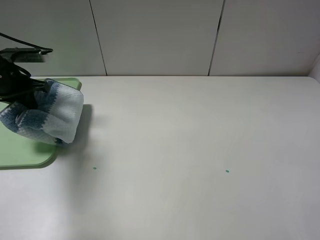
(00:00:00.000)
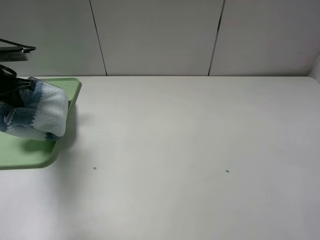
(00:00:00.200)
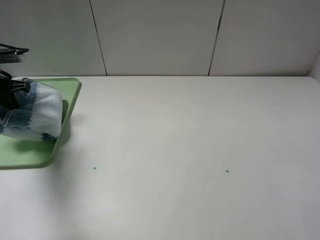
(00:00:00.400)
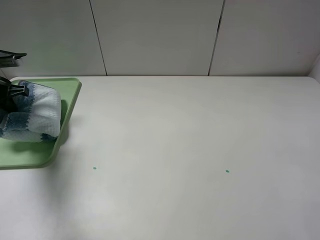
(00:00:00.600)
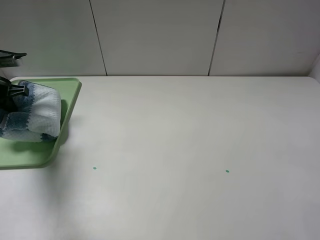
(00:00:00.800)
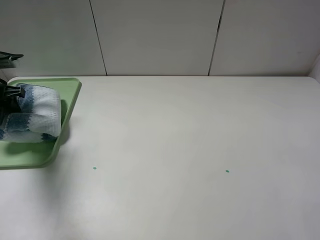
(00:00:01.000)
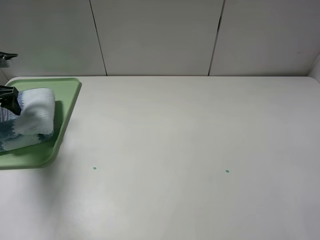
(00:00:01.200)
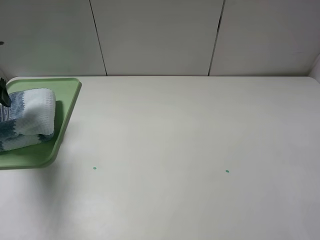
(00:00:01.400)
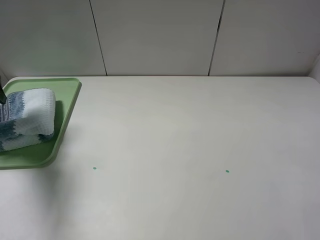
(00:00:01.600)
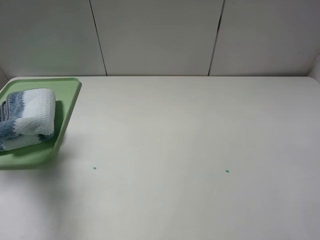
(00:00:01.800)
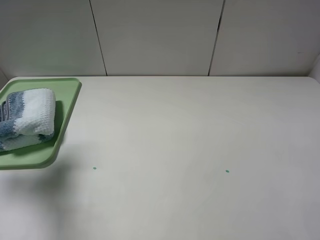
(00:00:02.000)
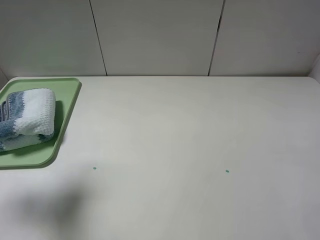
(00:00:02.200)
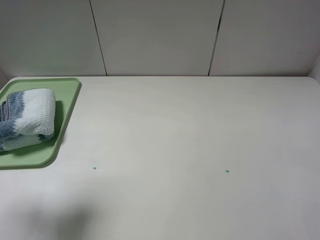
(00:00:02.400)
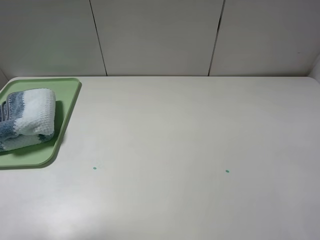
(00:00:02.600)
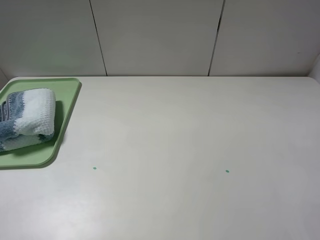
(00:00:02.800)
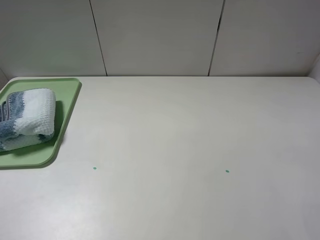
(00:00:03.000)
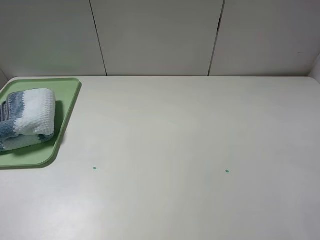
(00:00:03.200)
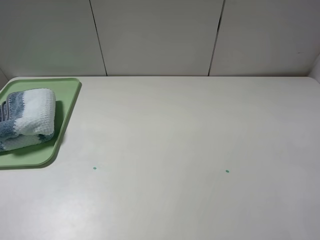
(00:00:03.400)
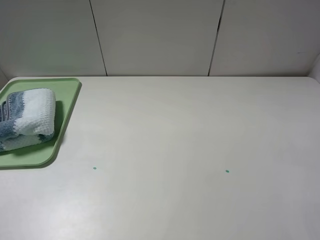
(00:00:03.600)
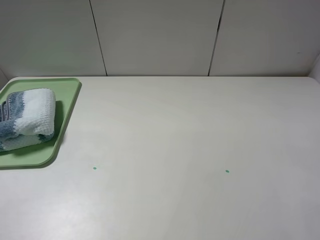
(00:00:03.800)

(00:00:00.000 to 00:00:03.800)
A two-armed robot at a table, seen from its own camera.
00:00:00.000 - 00:00:01.200: The left gripper travels to the left by roughly 5 cm, and opens up.
00:00:01.200 - 00:00:02.600: The left gripper shifts approximately 30 cm backward and upward.
00:00:02.600 - 00:00:03.800: The left gripper goes roughly 10 cm backward and downward.
